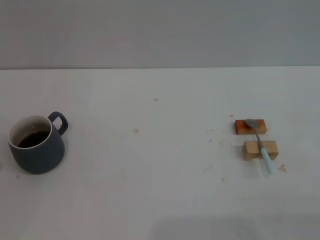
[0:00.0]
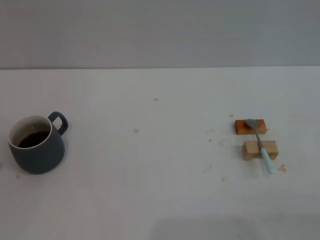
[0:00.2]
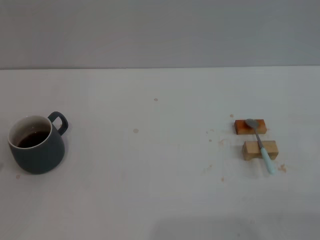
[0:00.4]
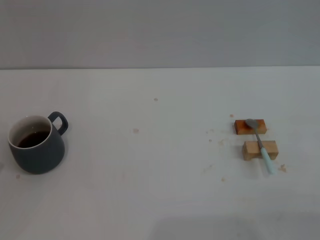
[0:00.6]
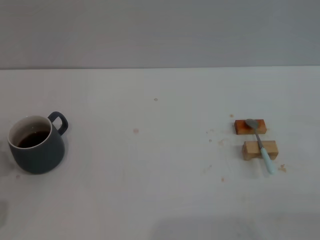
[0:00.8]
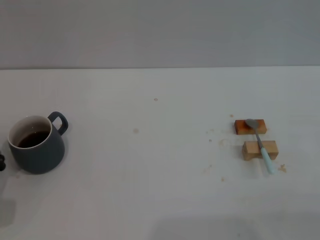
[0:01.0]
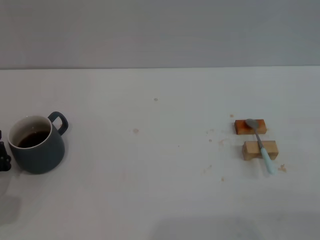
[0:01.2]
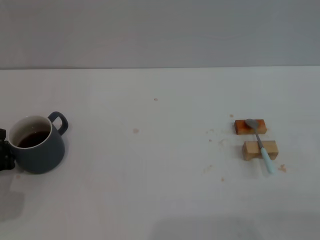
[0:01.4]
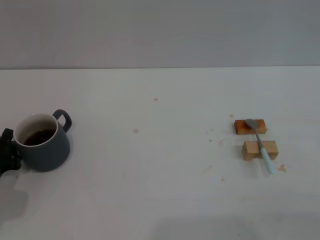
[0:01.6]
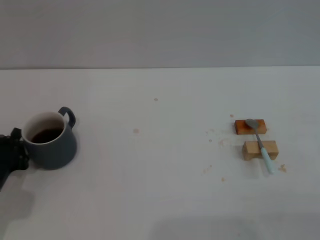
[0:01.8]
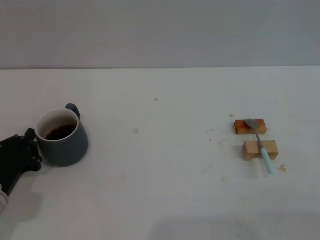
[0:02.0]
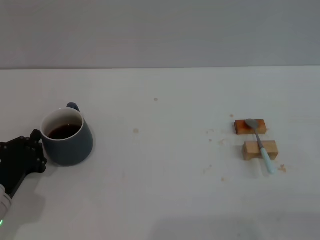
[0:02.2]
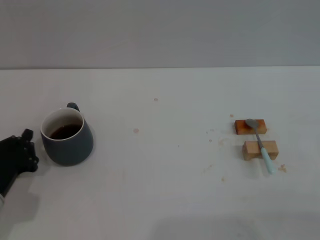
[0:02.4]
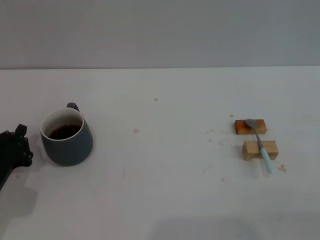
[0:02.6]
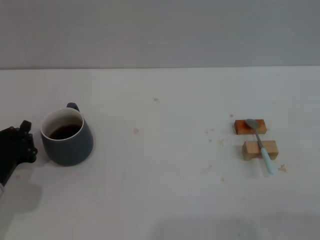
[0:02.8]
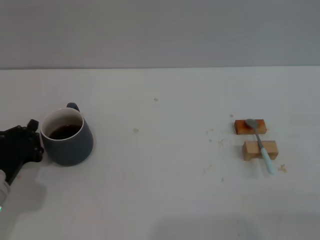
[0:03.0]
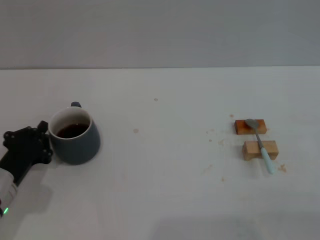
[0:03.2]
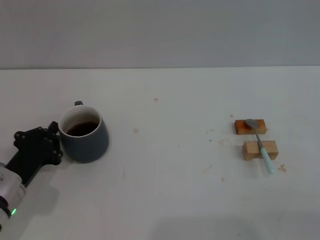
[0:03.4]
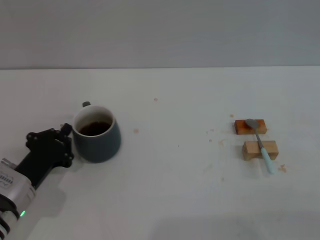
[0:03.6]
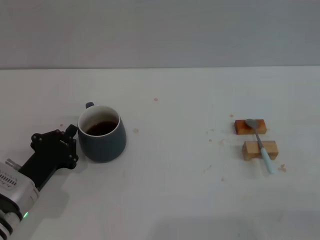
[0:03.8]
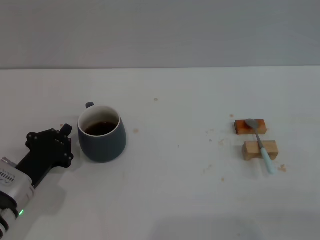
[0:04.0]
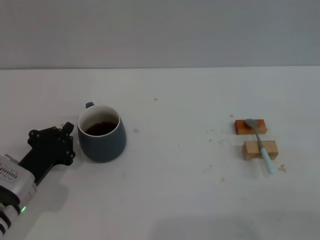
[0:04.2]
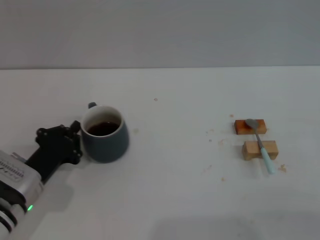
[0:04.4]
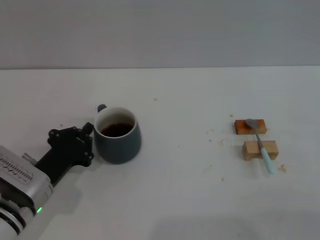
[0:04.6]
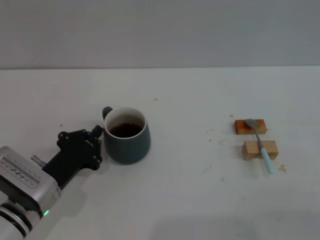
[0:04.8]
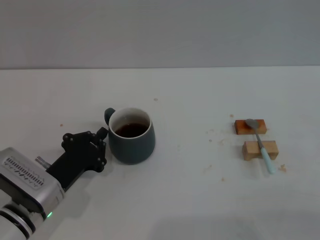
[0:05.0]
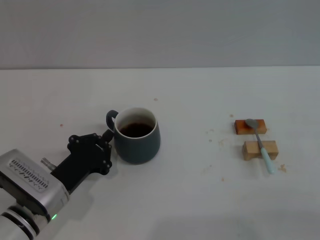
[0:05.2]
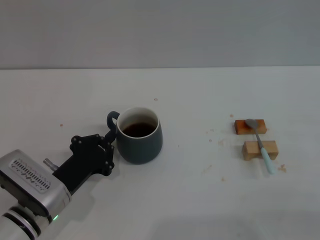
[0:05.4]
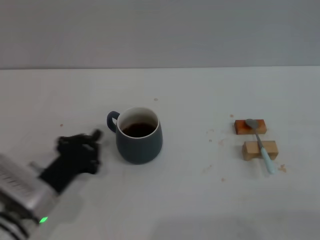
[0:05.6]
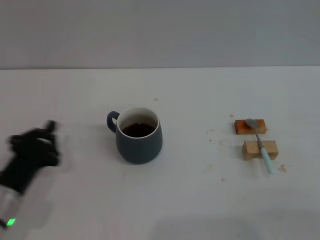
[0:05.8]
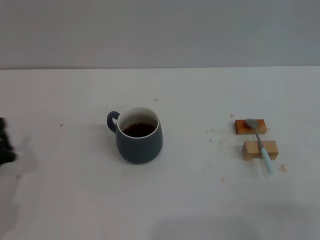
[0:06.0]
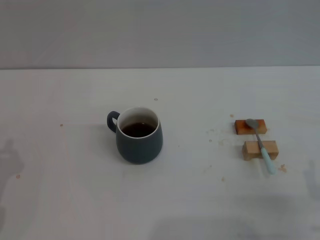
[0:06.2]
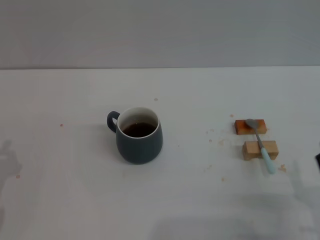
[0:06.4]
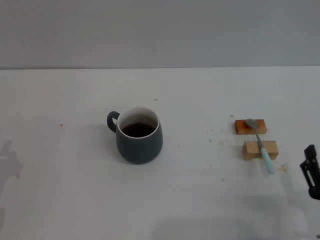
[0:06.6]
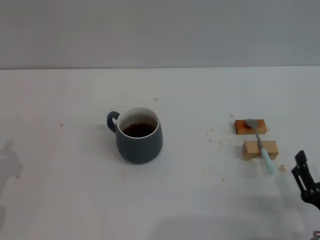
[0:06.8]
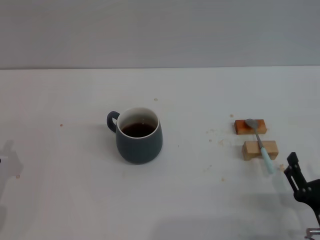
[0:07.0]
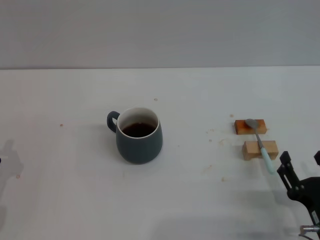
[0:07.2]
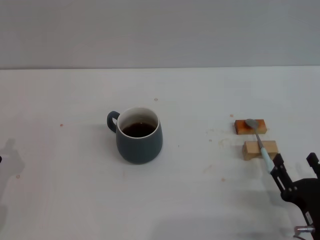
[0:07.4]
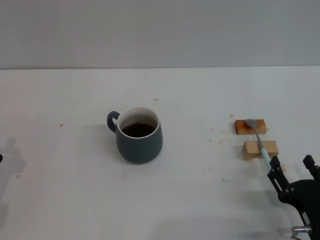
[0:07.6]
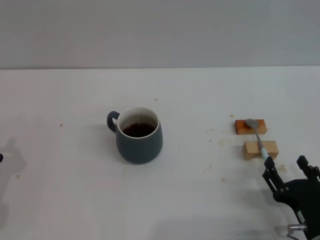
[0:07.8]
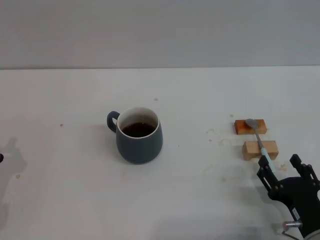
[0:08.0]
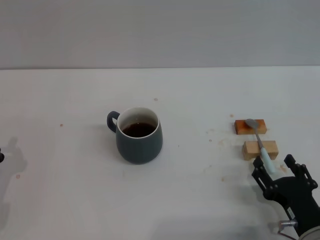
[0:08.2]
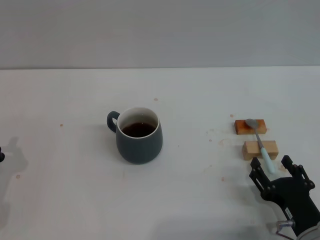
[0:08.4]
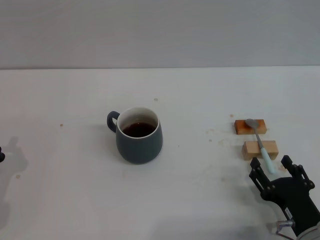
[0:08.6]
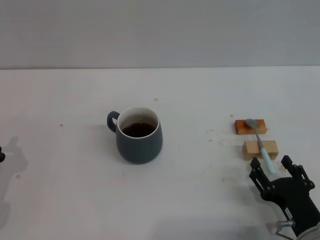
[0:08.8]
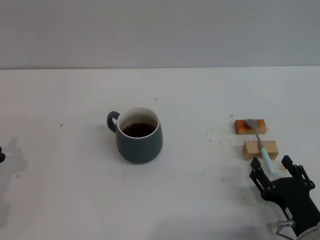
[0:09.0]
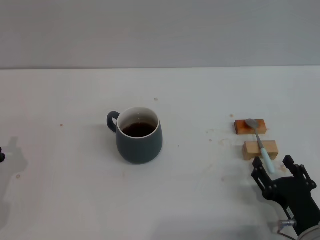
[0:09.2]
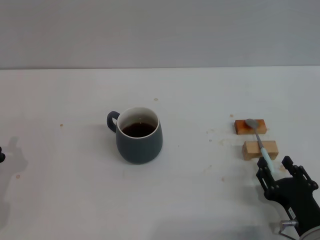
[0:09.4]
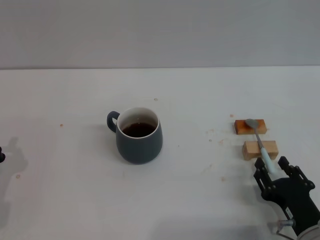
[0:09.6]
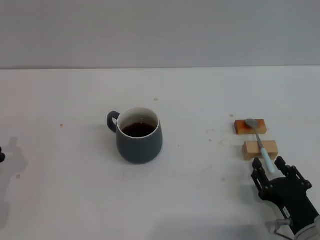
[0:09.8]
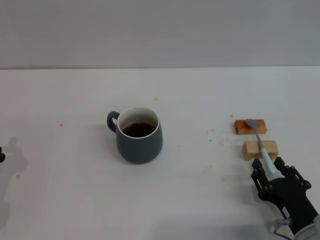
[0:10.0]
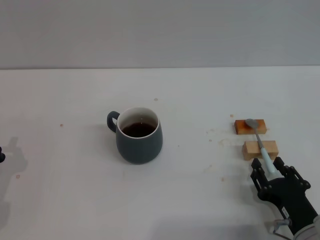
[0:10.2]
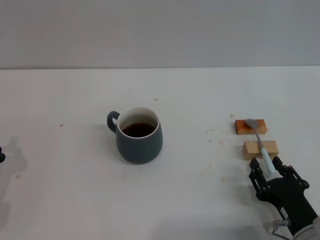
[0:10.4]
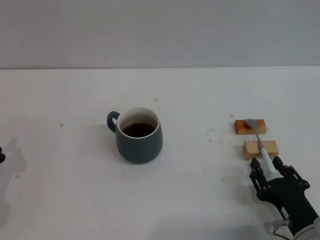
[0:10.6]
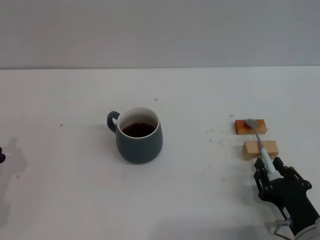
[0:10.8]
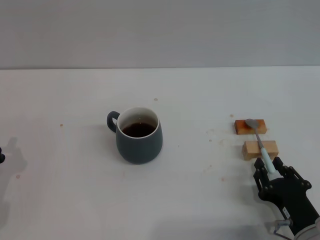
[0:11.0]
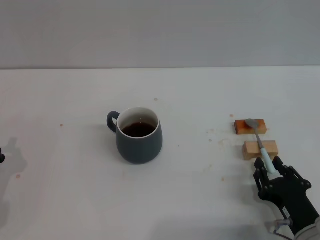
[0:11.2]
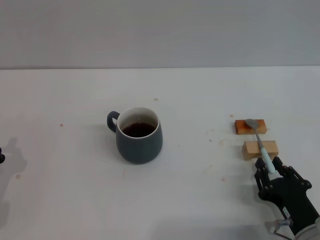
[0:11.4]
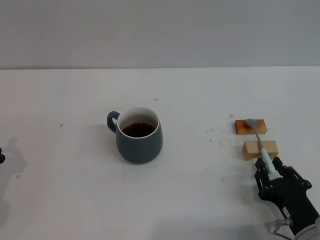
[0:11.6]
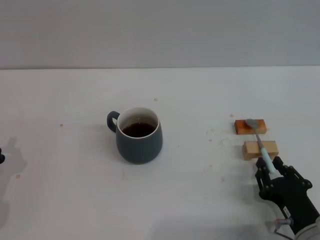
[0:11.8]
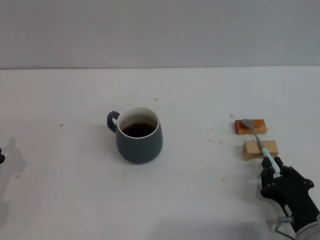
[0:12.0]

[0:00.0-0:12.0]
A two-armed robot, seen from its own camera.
Task of the whole recording: Move the grey cup to the center, lift the blue spoon, stir it three times in the cup, and put the spoon into the cup.
Step, 0:00.0 to 0:05.6: Move the cup with coffee to the center of view with the left gripper.
0:00.0 to 0:01.6: The left gripper moves about 5 cm.
0:01.6 to 0:03.0: There are only small adjustments of the grippers.
0:03.0 to 0:04.4: The grippers stay close to where they were, moving slightly.
0:04.4 to 0:06.0: The left gripper shifts by some 5 cm.
0:06.0 to 0:07.6: The right gripper ends up approximately 5 cm from where it was.
0:07.6 to 0:09.0: The grippers move only a little.
0:09.0 to 0:12.0: The two grippers keep their place.

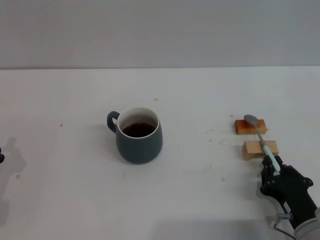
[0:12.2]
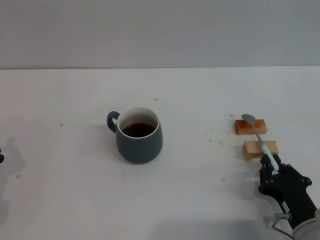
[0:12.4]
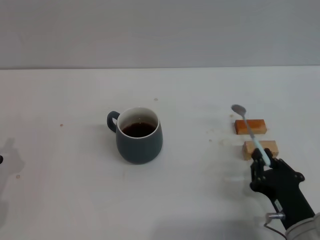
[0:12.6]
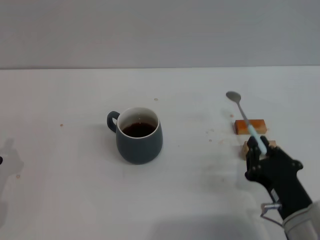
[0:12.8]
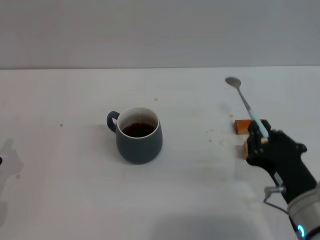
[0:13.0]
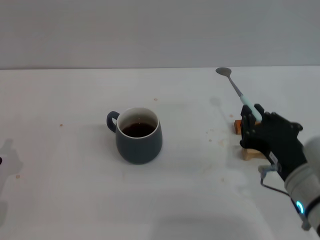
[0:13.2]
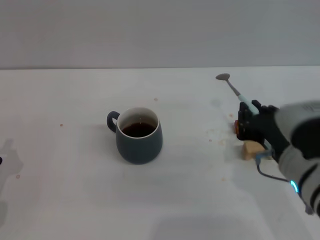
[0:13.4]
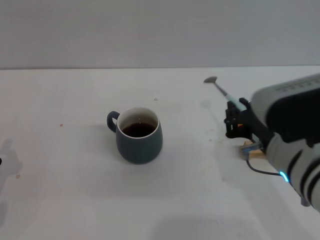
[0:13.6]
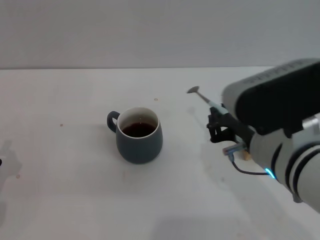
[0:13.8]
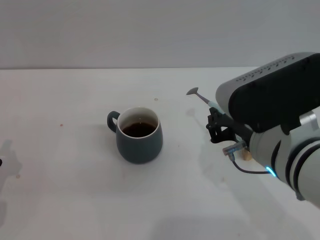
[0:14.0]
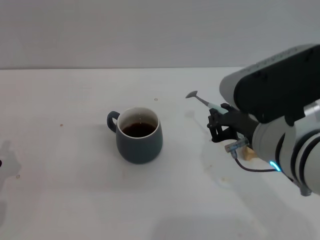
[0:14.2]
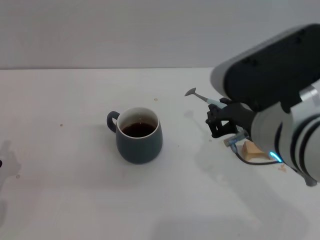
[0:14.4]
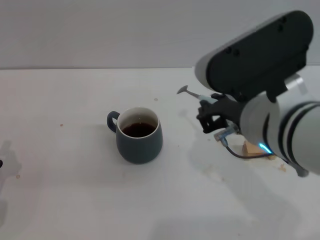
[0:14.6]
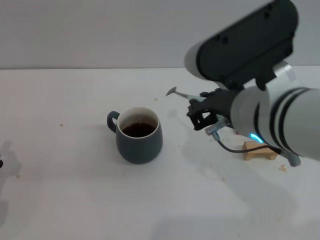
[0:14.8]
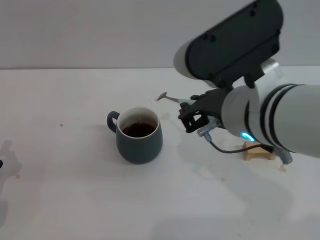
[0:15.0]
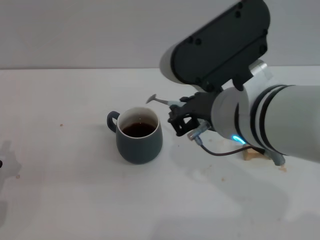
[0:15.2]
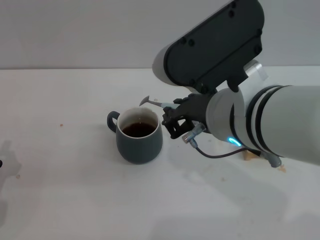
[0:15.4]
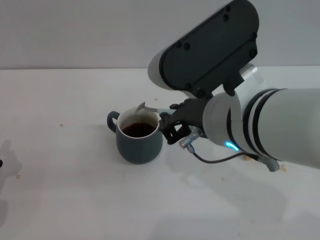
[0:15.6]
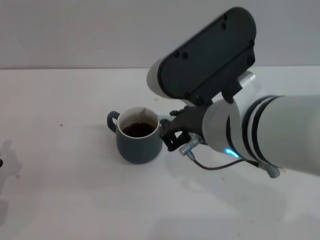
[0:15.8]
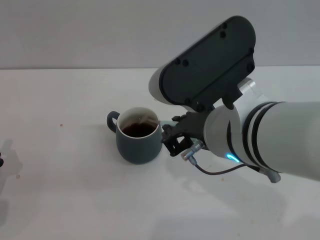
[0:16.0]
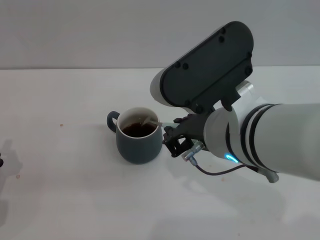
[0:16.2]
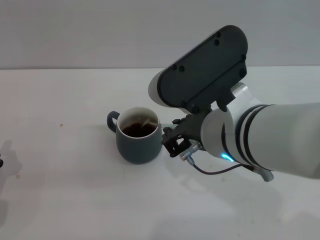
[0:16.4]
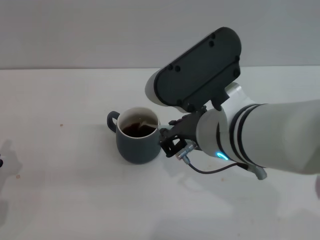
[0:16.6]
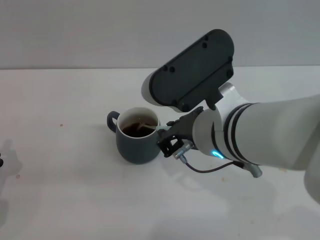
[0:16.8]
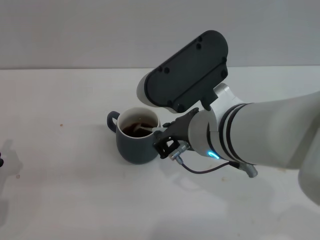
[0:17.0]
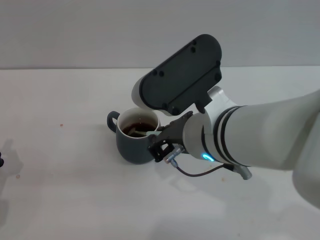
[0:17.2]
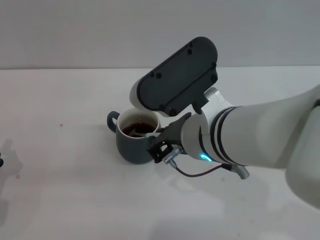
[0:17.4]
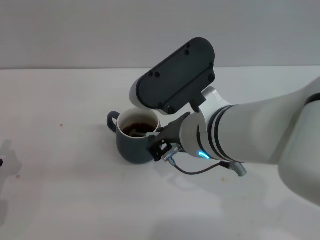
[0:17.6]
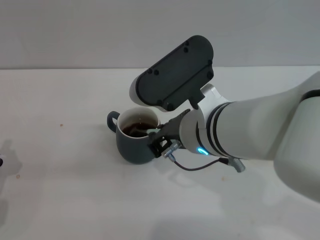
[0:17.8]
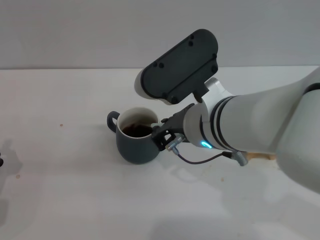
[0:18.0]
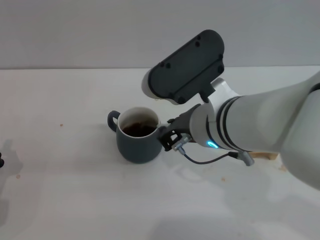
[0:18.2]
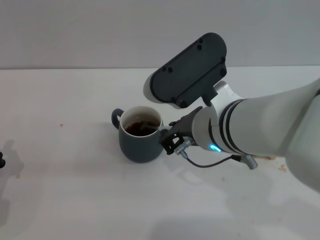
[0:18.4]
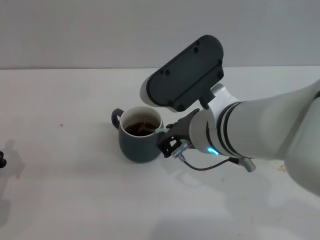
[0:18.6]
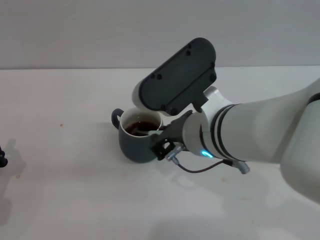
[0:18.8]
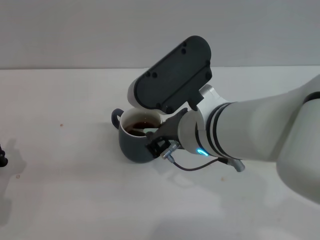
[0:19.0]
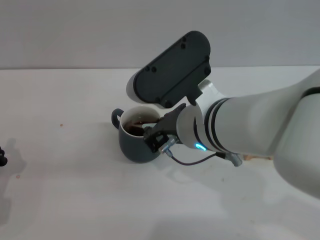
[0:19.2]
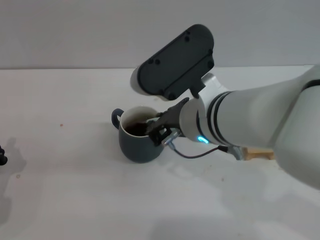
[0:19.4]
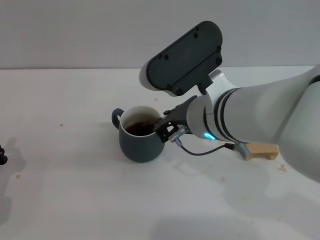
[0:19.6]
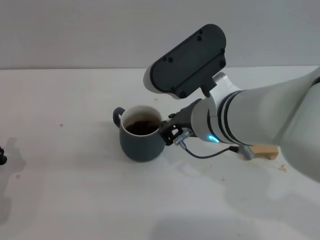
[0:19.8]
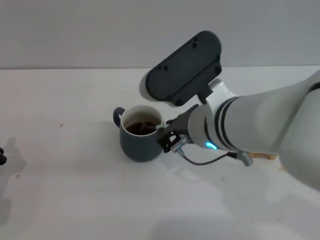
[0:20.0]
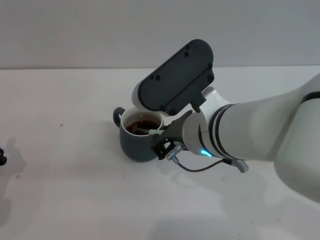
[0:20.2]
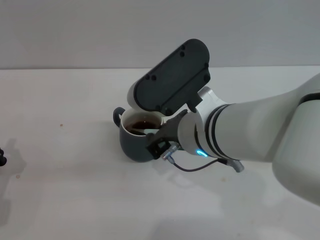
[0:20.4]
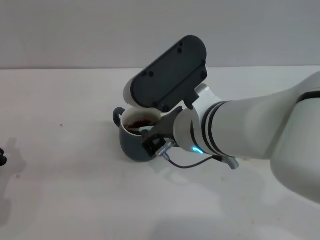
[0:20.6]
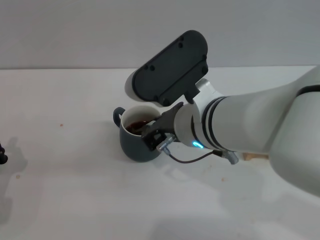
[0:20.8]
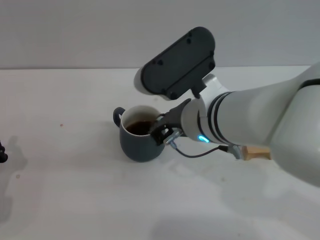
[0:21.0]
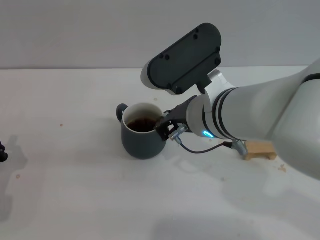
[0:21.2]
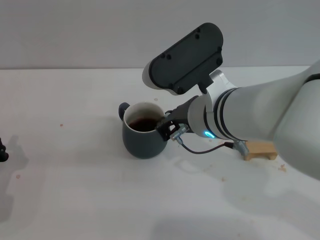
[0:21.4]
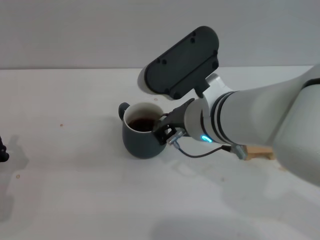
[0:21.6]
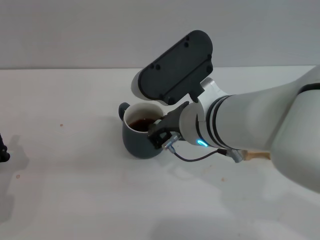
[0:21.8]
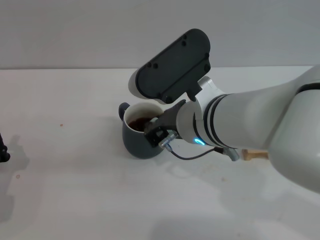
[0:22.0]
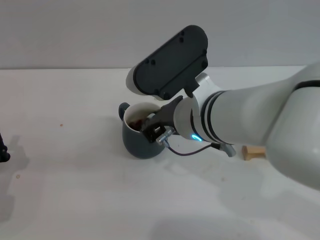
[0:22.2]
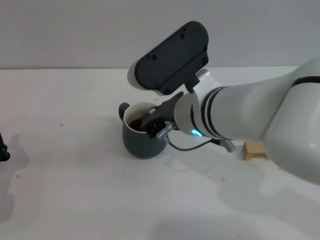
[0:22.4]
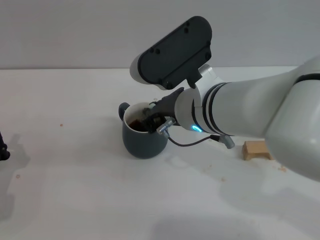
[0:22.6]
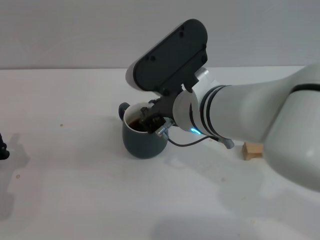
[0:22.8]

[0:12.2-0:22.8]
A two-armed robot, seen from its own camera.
Task of the whole recording: Move the grey cup to the center, lift the blue spoon, stir it three times in the cup, and put the spoon into the cup.
0:12.2 to 0:13.8: The right gripper moves upward and to the left, roughly 25 cm.
0:13.8 to 0:15.2: The right gripper ends up about 5 cm from where it was.
0:15.2 to 0:16.8: The grippers stay close to where they were, moving slightly.
0:16.8 to 0:22.8: The grippers make only small movements.
